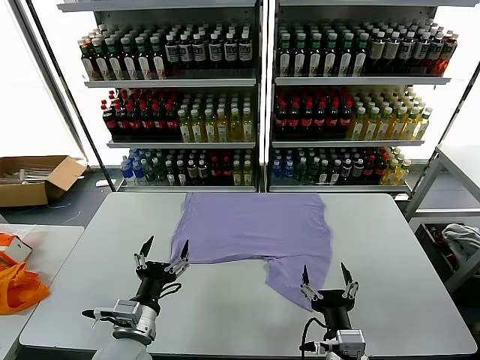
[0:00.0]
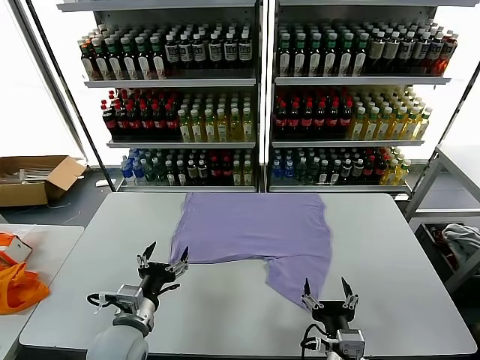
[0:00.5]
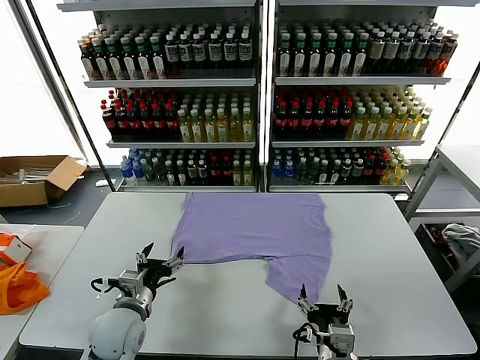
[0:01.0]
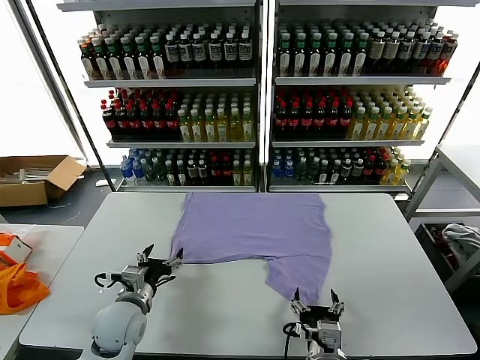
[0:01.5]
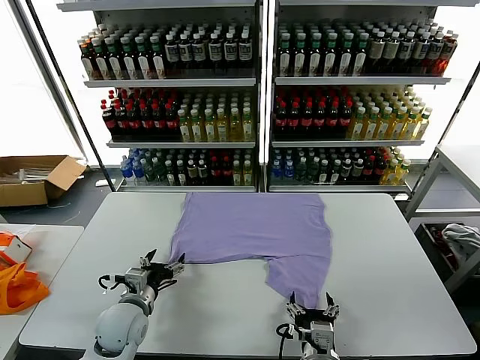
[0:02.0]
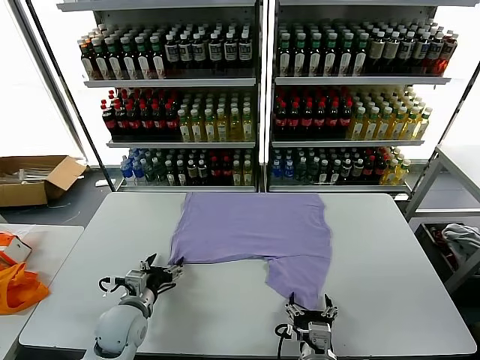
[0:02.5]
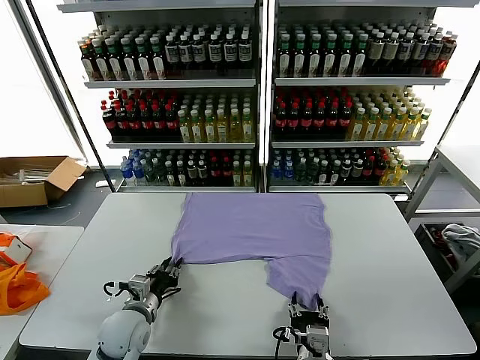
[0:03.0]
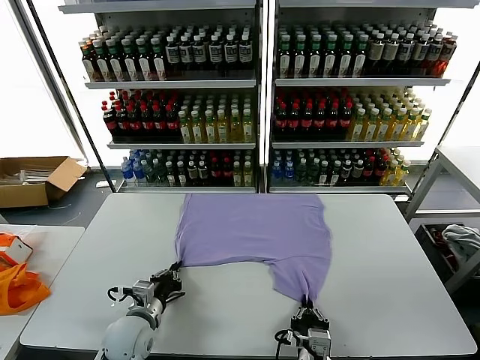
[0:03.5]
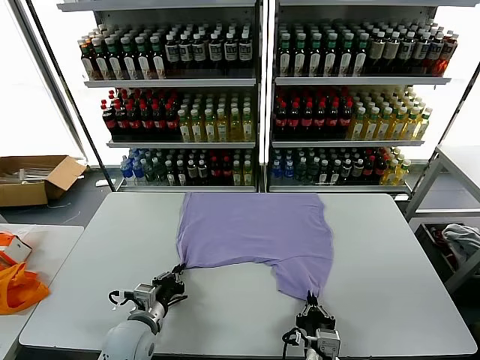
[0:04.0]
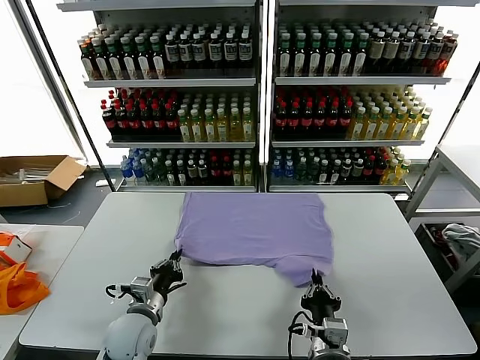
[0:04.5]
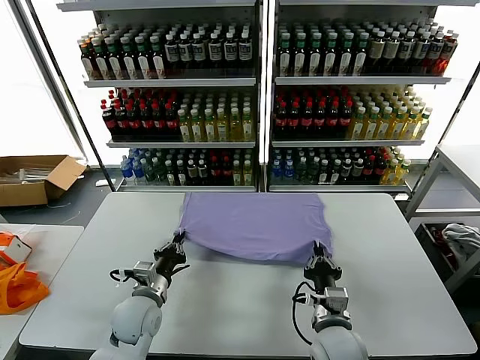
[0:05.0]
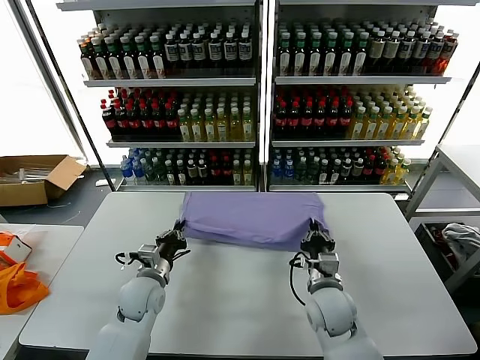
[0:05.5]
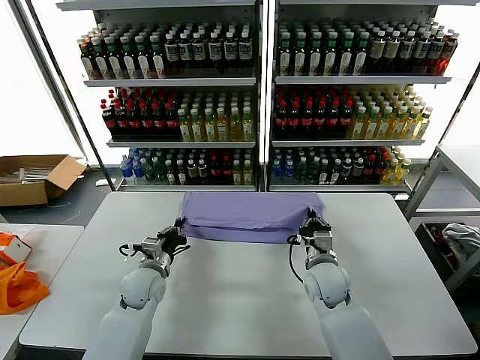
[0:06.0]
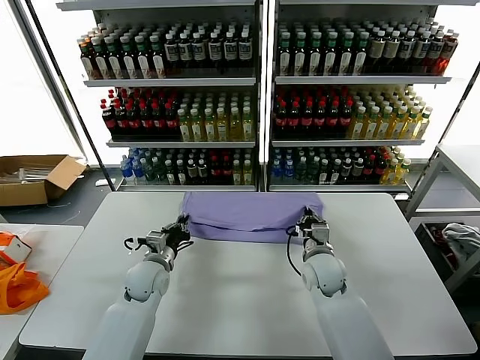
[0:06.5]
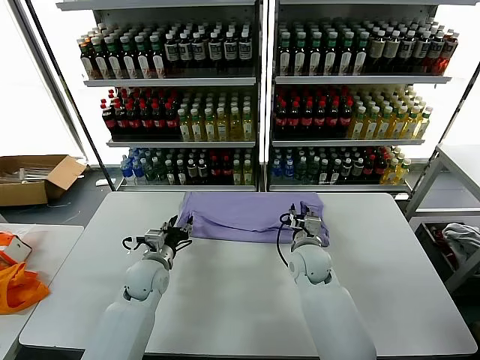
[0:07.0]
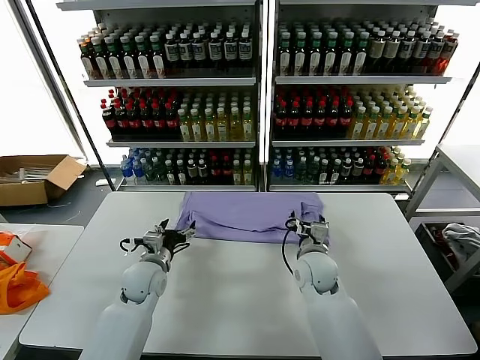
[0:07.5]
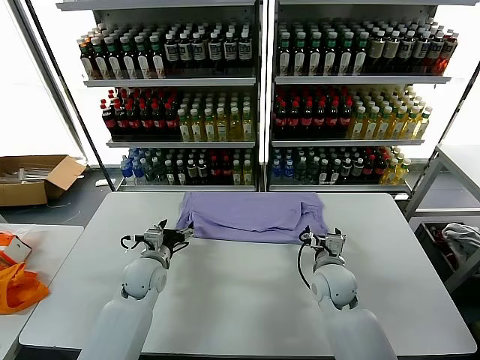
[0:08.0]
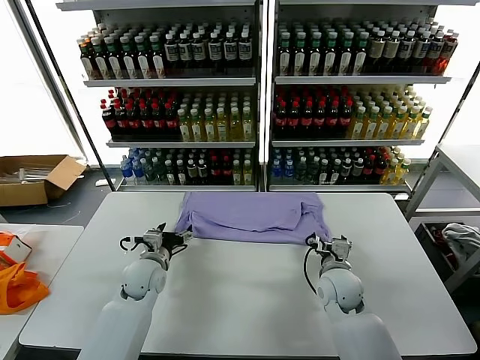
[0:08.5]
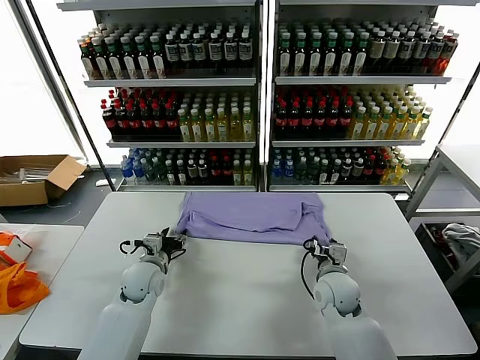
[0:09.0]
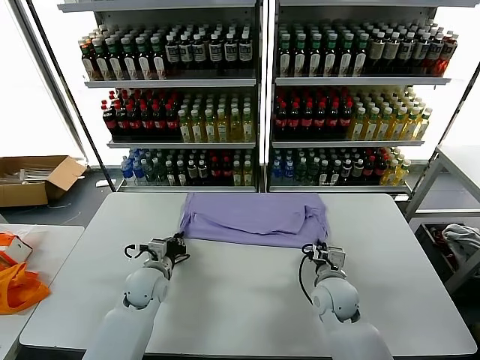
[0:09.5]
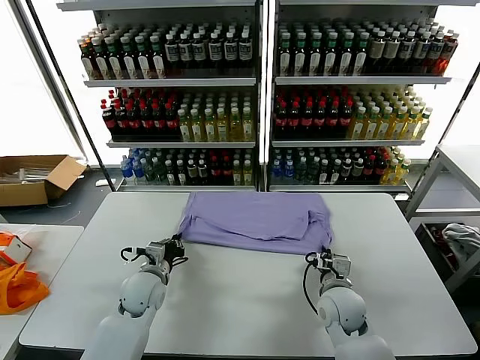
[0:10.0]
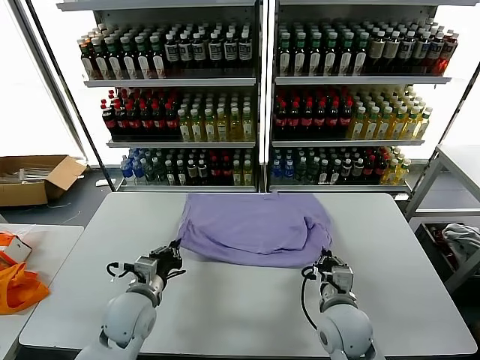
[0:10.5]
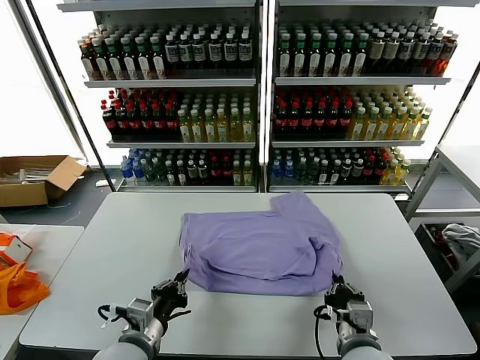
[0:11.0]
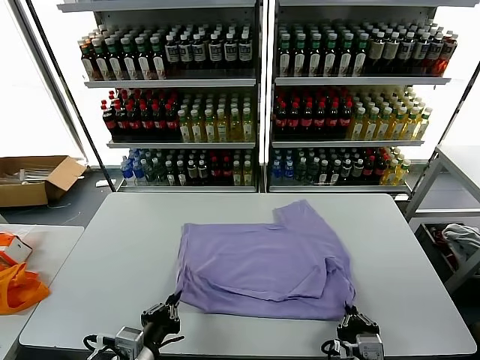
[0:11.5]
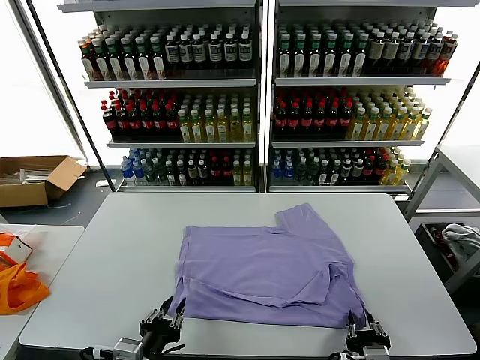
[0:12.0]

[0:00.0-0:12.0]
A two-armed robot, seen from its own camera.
Task of the whole recording: fold and organize the clothes.
Step, 0:00.0 to 0:03.0: use both grippers simultaneously to clamp the lower edge of the clothing fabric.
Step, 0:03.5 to 0:06.5: use both grippers to drag the lower edge of the fabric forward and fold it over the upper edge.
Step, 0:07.0 to 0:11.5: Drag the clothes downward with both gripper.
0:02.0 to 0:04.0: The left gripper closes its fingers; the right gripper closes up.
0:04.0 to 0:06.0: The left gripper goes roughly 10 cm forward, while the right gripper travels forward by some 25 cm.
0:06.0 to 0:08.0: The left gripper opens, while the right gripper opens its fingers.
0:08.0 to 0:10.0: The right gripper goes about 5 cm backward, and closes its fingers. The left gripper closes.
0:10.0 to 0:12.0: The grippers both shift backward by approximately 20 cm. The right gripper opens up, while the left gripper opens up.

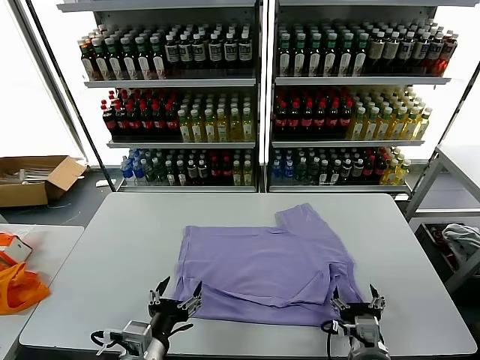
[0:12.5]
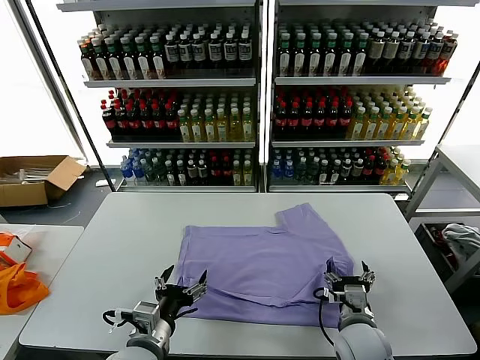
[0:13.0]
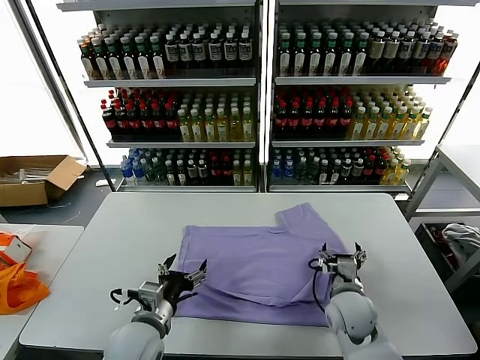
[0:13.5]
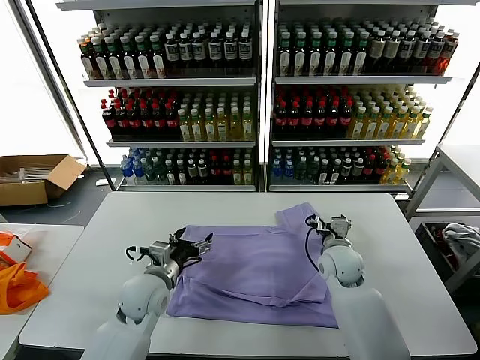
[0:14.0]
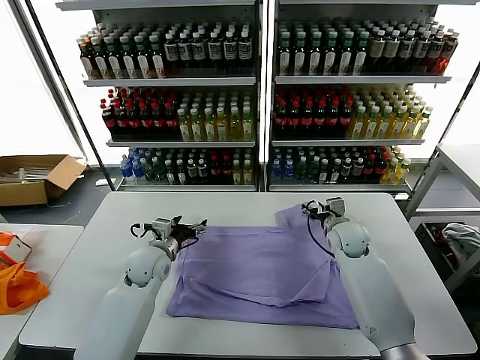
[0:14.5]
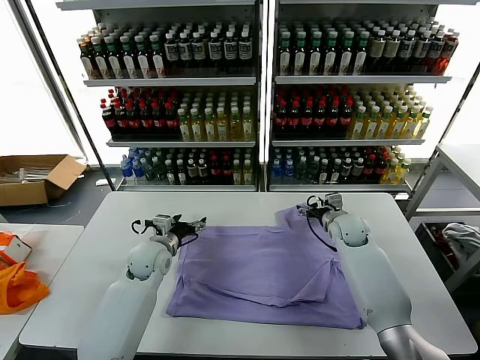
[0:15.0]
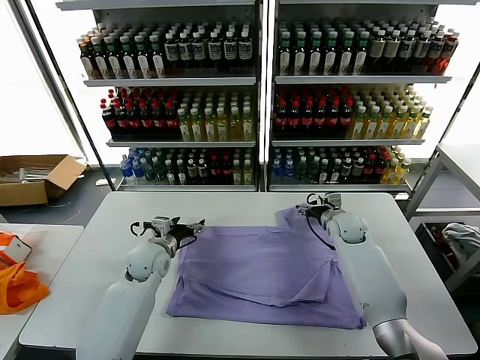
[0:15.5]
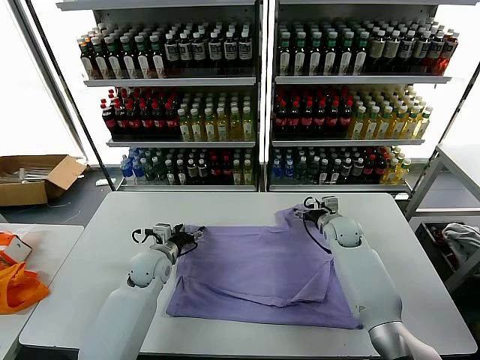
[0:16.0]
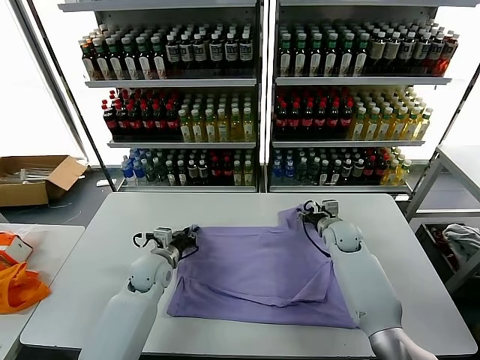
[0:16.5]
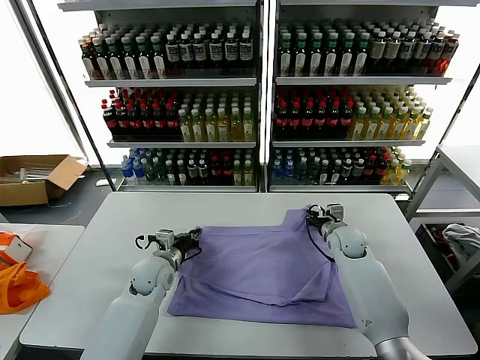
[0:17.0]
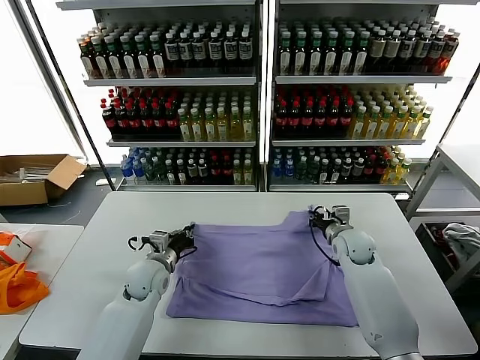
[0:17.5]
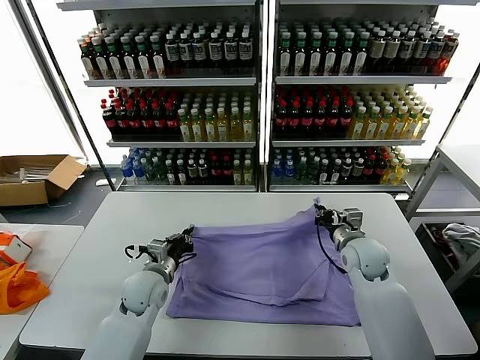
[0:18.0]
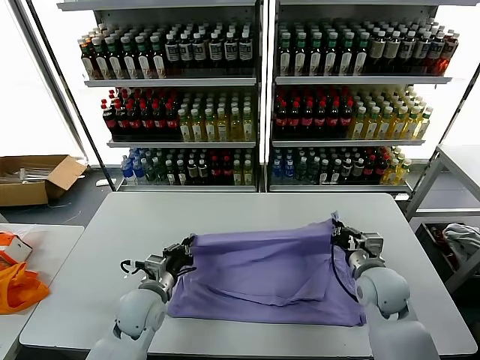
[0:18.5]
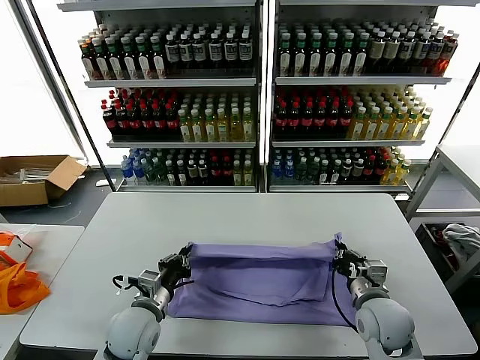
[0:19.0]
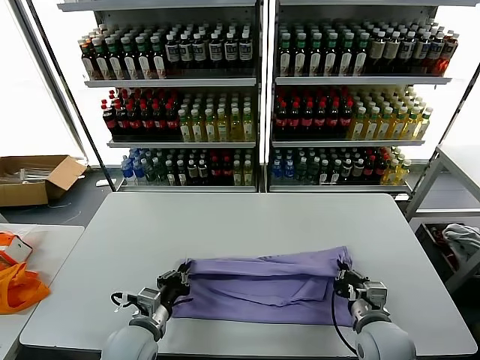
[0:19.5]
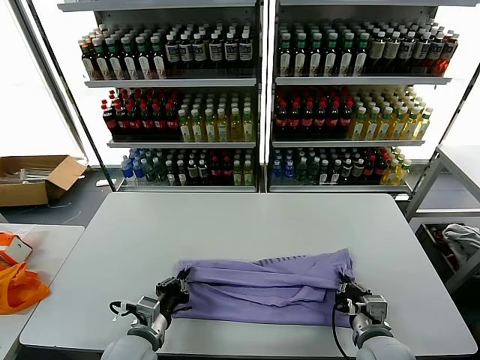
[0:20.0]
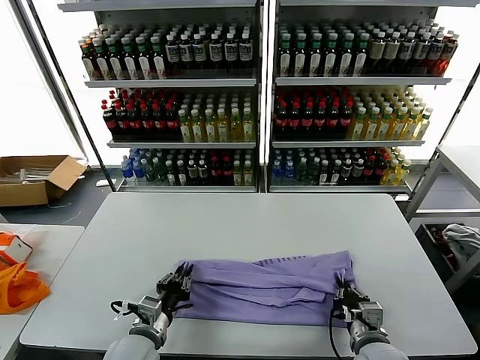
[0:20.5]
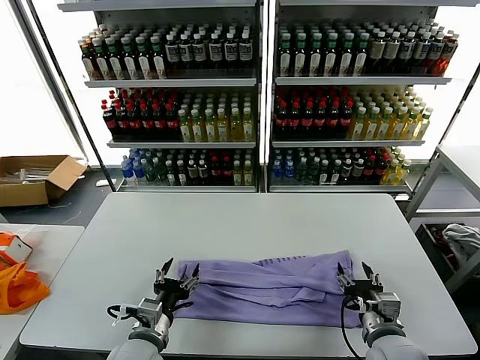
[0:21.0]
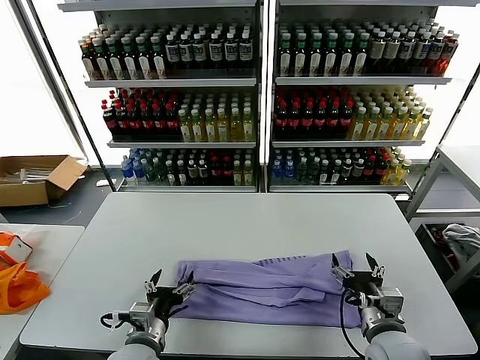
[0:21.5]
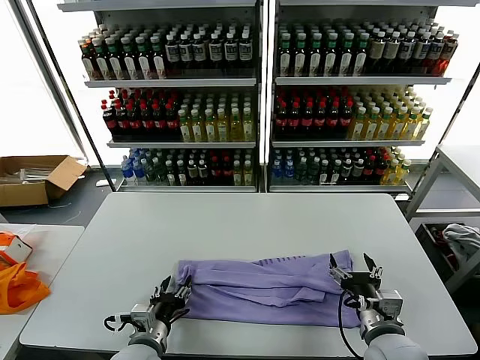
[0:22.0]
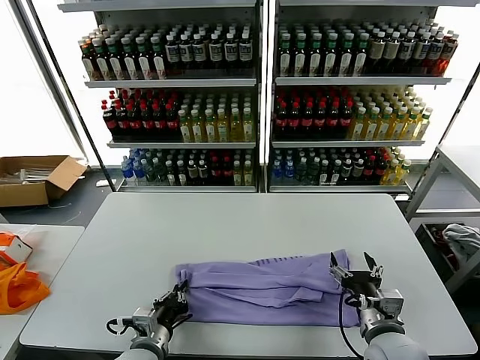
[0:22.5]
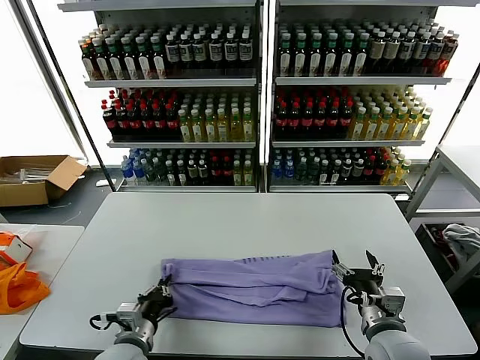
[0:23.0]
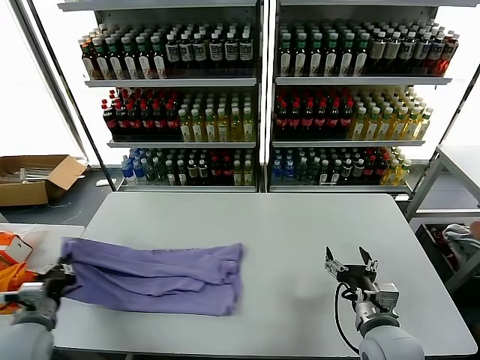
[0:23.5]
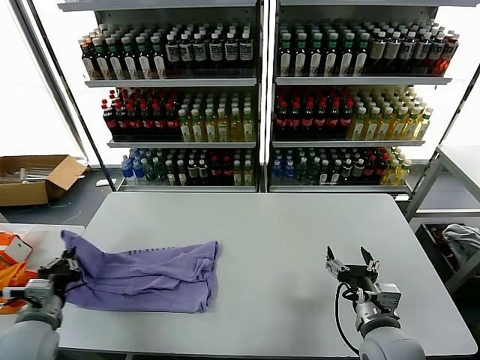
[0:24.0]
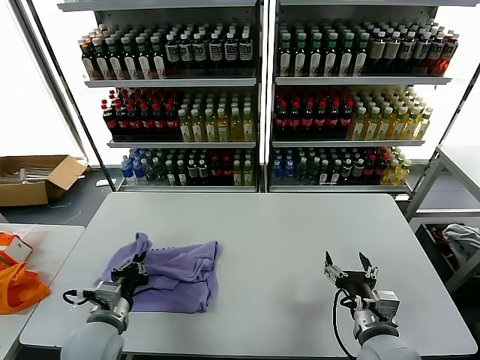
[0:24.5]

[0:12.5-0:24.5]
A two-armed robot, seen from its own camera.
Task of the whole recording: fold and organize the clothes.
Step, 0:12.5 to 0:17.0: use both grippers simultaneously to clamp the upper edge of the clothing fabric.
Step, 0:17.5 to 0:20.5: use both grippers to drag the upper edge of the fabric backward and fold it over the lower edge.
Step, 0:21.0 to 0:22.5: use the left gripper to clamp the left edge of the fabric.
0:12.5 to 0:14.5: Both grippers travel together forward, about 30 cm.
0:14.5 to 0:16.5: The right gripper closes. Meanwhile the left gripper closes up.
0:16.5 to 0:18.5: The left gripper is displaced backward by some 10 cm. The right gripper shifts about 20 cm backward, and closes its fingers.
0:18.5 to 0:20.5: The left gripper is displaced backward by roughly 10 cm, while the right gripper is displaced backward and downward by approximately 15 cm.
0:20.5 to 0:22.5: The left gripper opens, then closes once more. Meanwhile the right gripper goes approximately 5 cm upward, and opens.
0:22.5 to 0:24.5: The left gripper travels to the left and upward by some 10 cm.

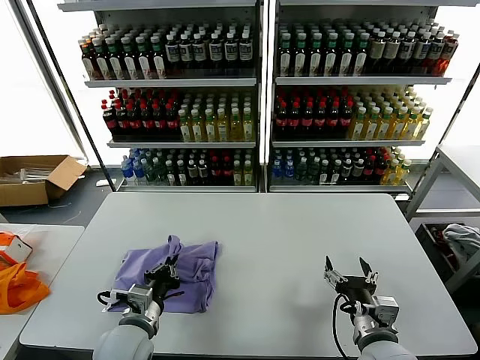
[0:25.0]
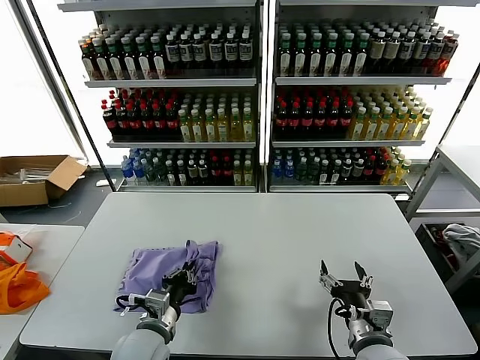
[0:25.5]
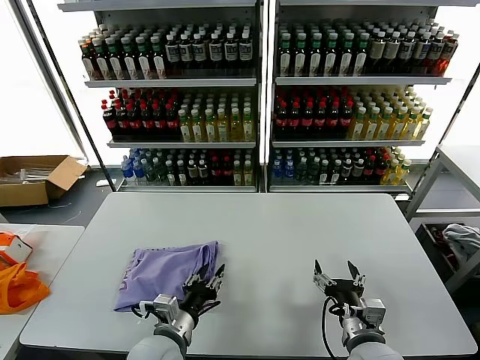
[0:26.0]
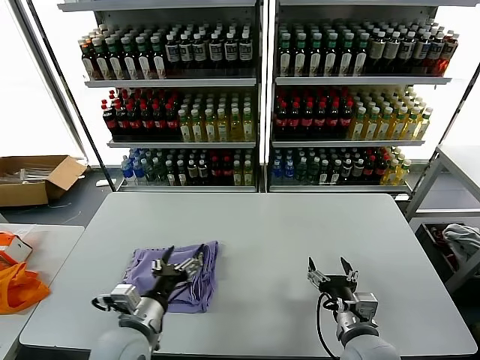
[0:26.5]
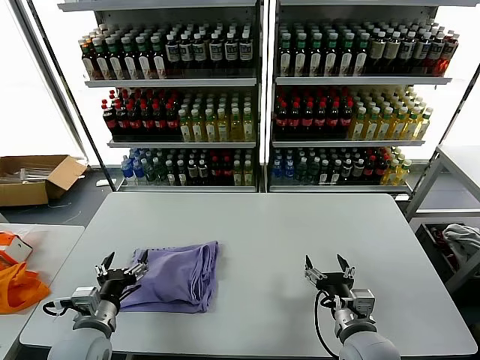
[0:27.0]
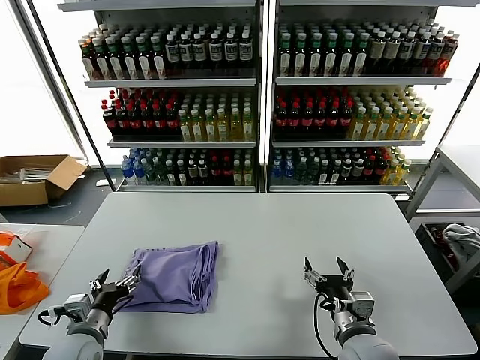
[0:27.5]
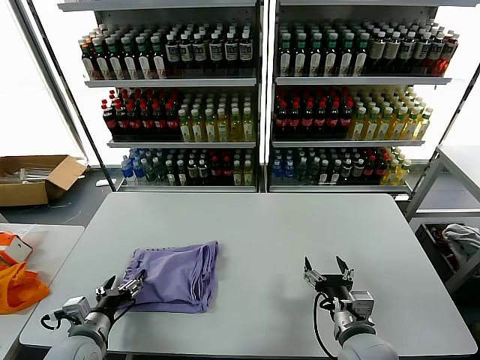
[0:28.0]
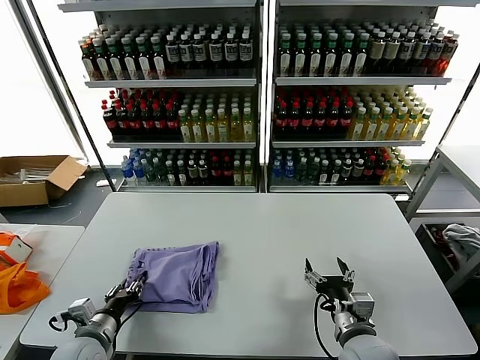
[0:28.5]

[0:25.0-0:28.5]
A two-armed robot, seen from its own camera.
Task of the whole recording: fold and organize the clothes.
0:25.0 to 0:27.0: The left gripper moves to the left, about 10 cm, and opens.
0:27.0 to 0:28.5: The left gripper ends up some 5 cm from where it was, and closes.
